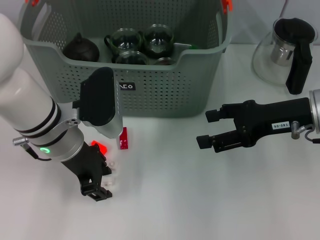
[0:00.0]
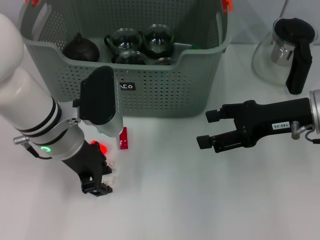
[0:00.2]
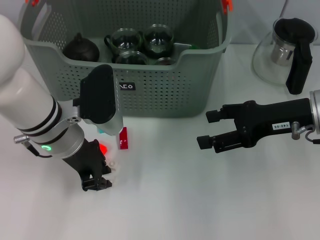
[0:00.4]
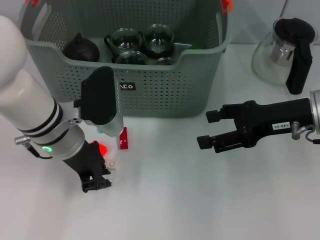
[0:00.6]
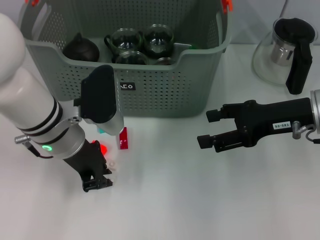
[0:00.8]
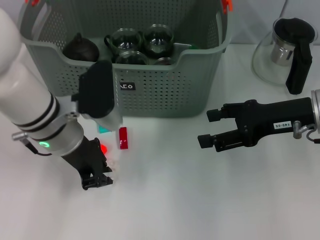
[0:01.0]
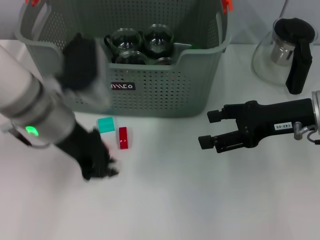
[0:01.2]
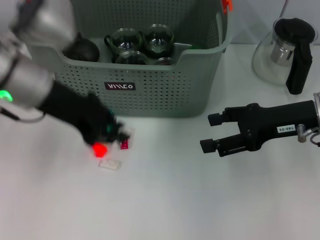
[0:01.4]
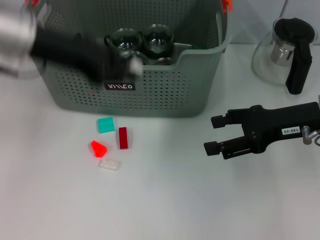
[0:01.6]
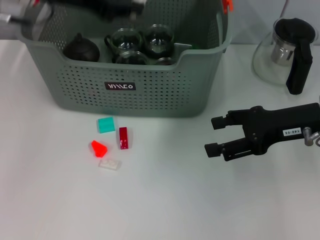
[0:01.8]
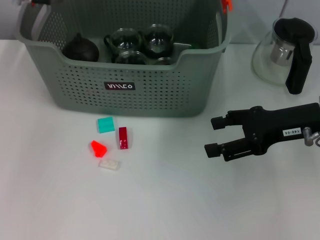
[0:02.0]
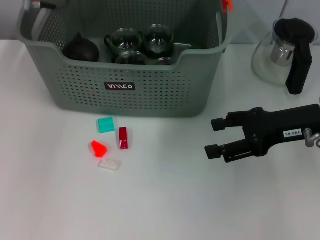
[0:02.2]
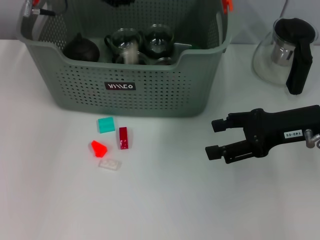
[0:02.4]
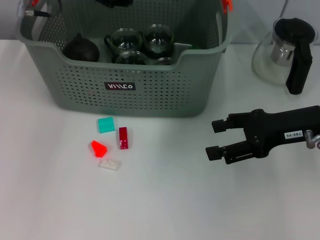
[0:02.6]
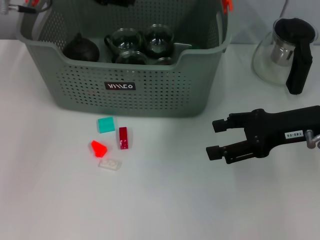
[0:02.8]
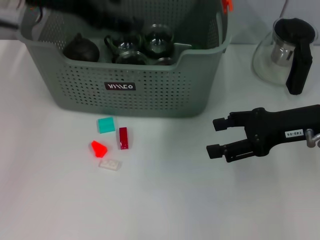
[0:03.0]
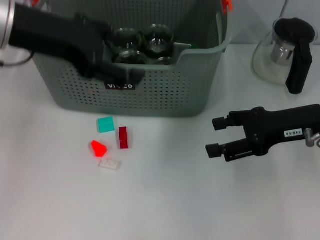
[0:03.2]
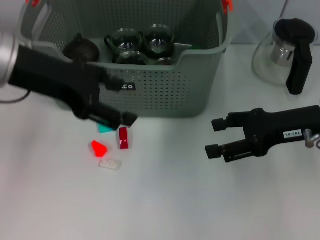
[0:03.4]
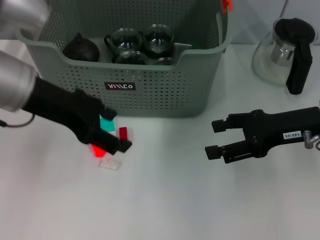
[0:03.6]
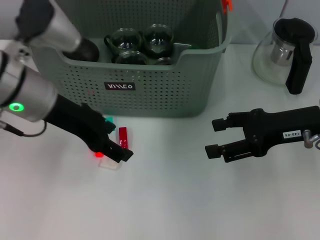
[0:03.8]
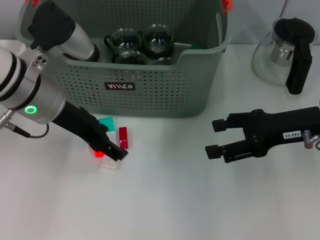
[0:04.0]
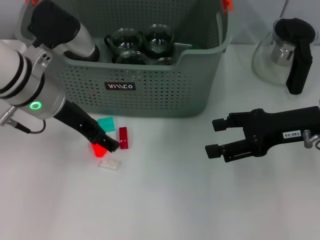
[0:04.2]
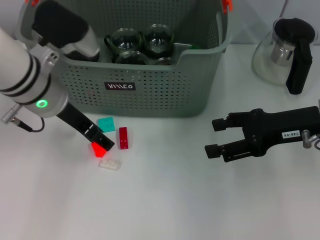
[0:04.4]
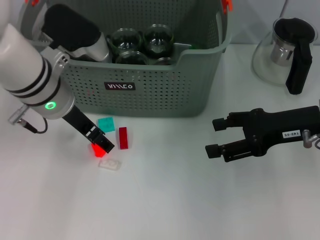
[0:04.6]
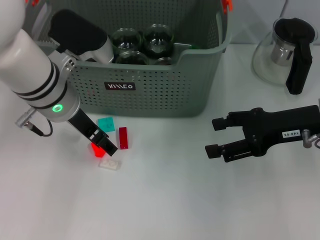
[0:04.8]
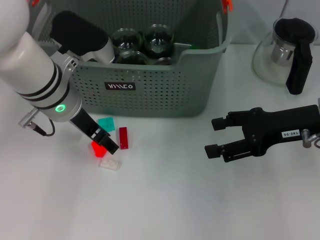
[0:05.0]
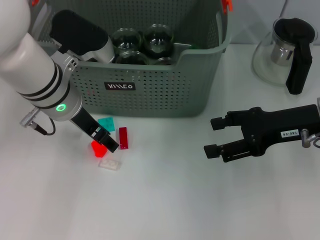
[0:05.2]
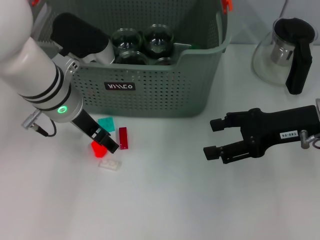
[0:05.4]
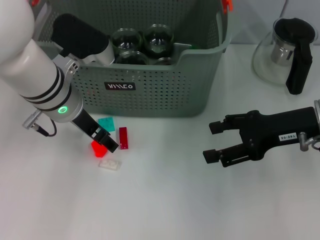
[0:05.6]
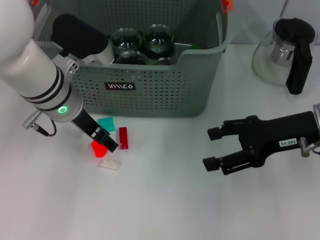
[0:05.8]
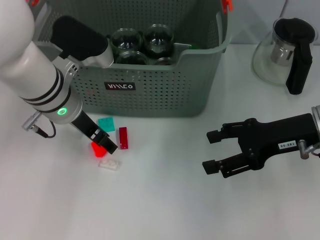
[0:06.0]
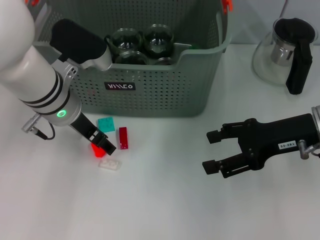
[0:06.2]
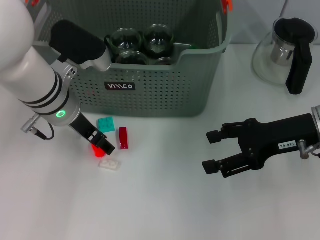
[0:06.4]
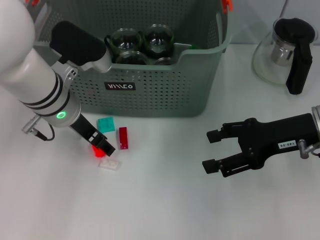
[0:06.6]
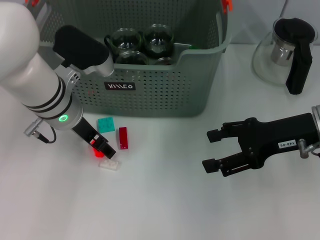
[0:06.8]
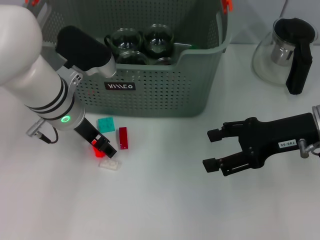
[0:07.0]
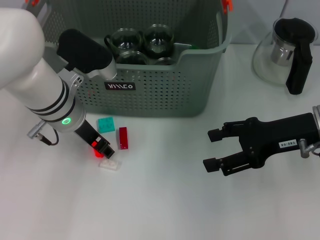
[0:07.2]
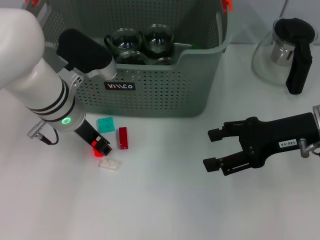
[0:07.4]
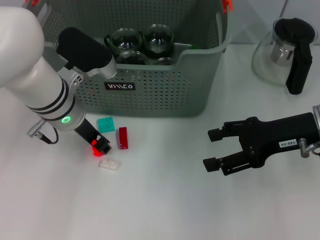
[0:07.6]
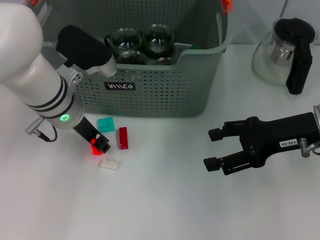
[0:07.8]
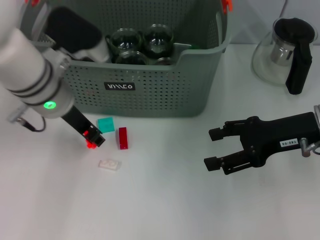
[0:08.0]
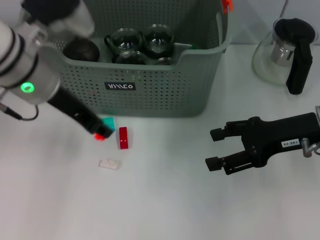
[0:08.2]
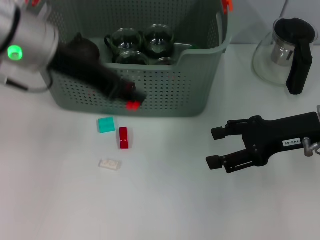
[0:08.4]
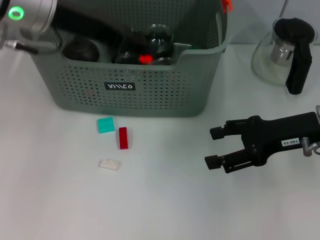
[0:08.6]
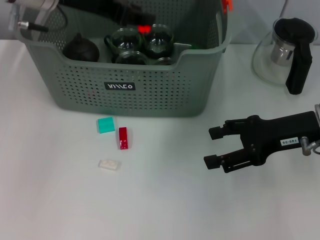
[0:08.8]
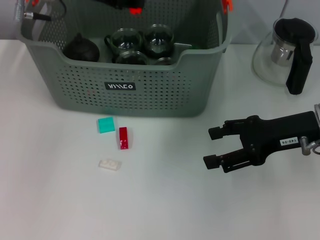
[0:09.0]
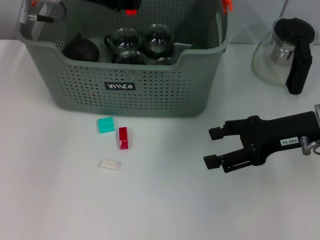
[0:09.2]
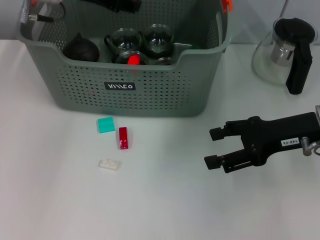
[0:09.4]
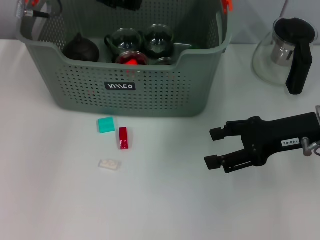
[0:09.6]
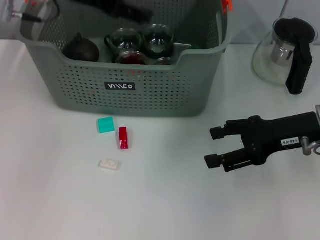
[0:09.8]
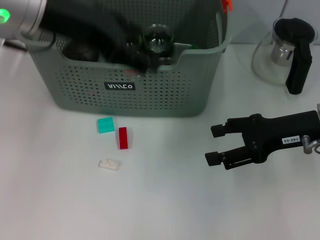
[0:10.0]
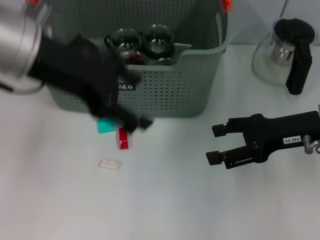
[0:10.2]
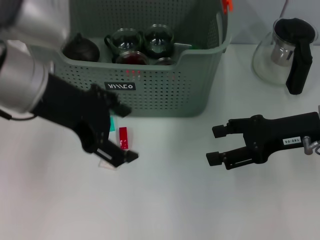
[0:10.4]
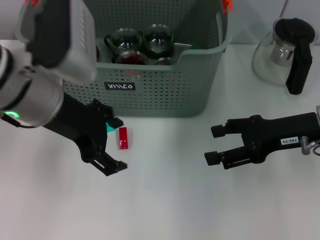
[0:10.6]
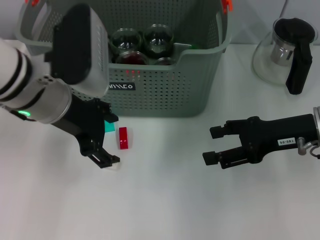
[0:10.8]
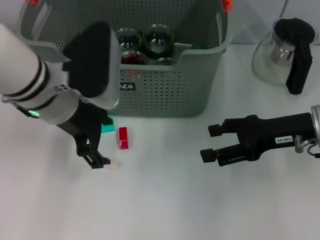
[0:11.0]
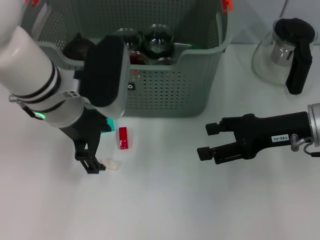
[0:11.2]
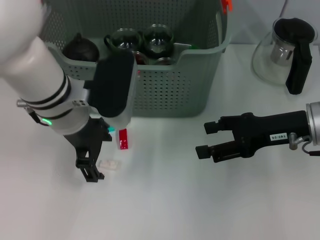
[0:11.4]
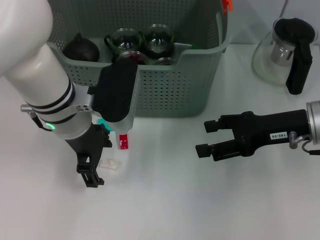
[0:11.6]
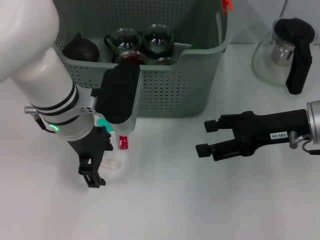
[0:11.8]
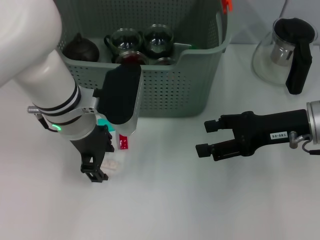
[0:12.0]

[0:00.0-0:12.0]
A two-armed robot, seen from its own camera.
Task of the whole recording: pick up the teacup on the table and place it into the storage bin, pick up the block on the table and place it into the storage bin.
Step, 0:00.8 to 0:02.4: Place the white block in the storage box with left gripper.
Step, 0:02.6 to 0:07.4: Grasp the orange block with left gripper.
Step, 0:07.8 to 0:09.4: Place the orange block in the storage box with left gripper.
0:00.0 to 0:01.6: The left gripper heads upward, covering approximately 15 cm, and closes up.
0:01.6 to 0:03.0: The left gripper goes forward and returns, roughly 10 cm each way, and opens its fingers.
0:03.0 to 0:04.4: The left gripper travels downward by approximately 10 cm.
0:04.4 to 0:06.0: The grippers stay close to where they were, moving slightly.
0:06.0 to 0:07.6: The left gripper closes up.
0:07.6 to 0:09.0: The left gripper moves upward and forward, roughly 15 cm.
0:09.0 to 0:10.4: The left gripper goes approximately 15 cm backward, and opens its fingers.
0:10.4 to 0:12.0: The left gripper shifts roughly 10 cm downward and forward.

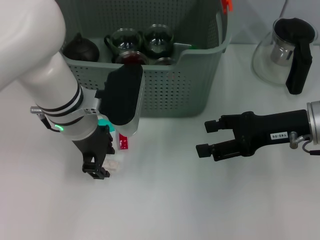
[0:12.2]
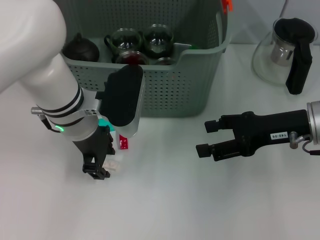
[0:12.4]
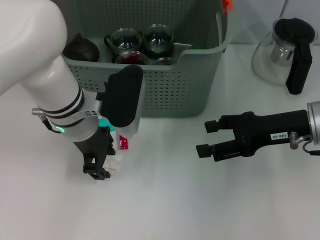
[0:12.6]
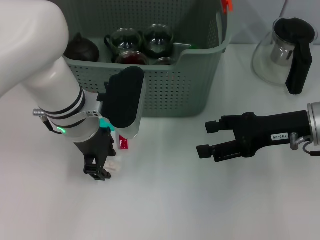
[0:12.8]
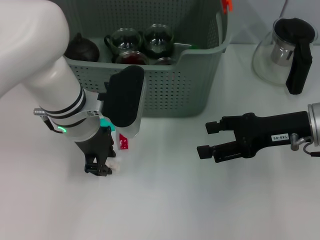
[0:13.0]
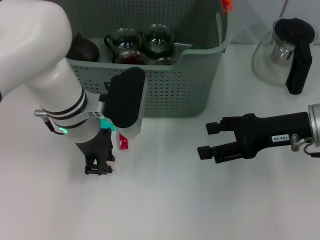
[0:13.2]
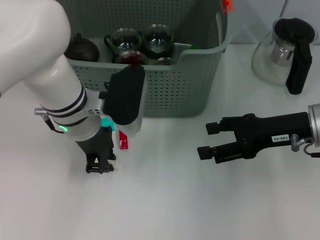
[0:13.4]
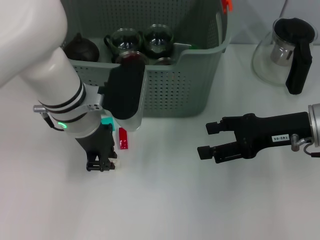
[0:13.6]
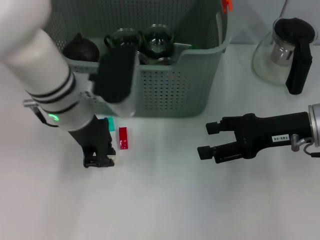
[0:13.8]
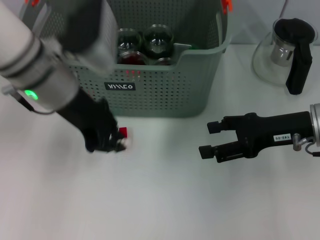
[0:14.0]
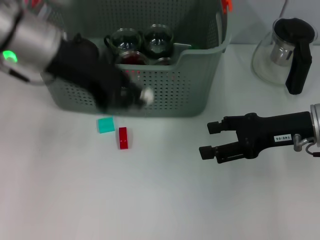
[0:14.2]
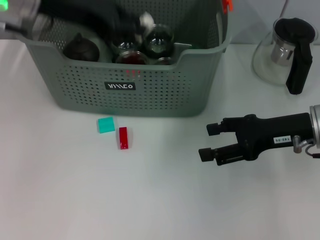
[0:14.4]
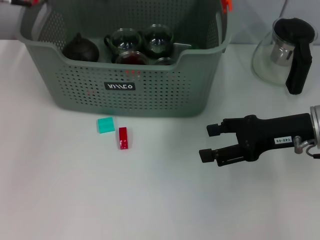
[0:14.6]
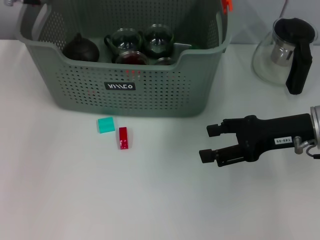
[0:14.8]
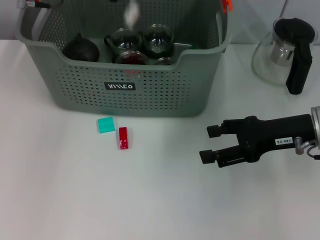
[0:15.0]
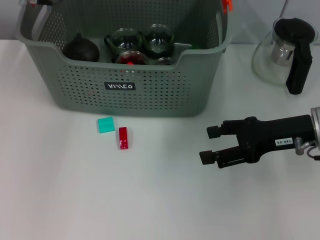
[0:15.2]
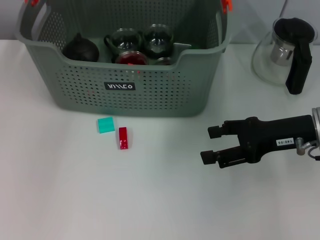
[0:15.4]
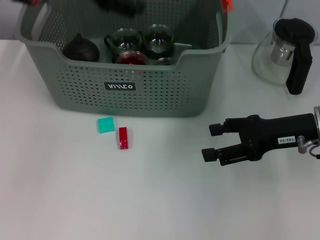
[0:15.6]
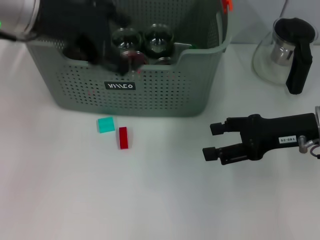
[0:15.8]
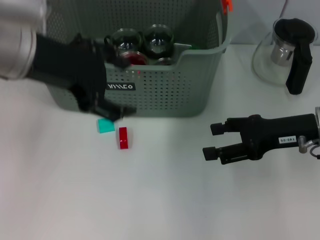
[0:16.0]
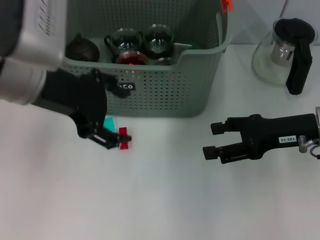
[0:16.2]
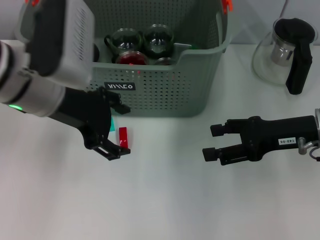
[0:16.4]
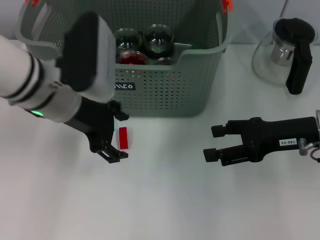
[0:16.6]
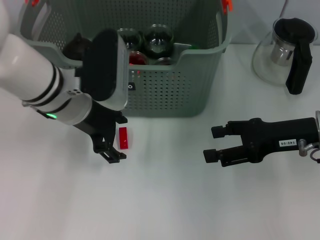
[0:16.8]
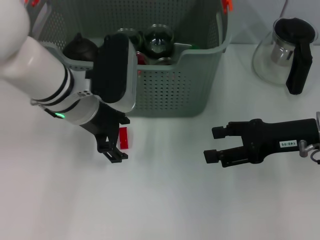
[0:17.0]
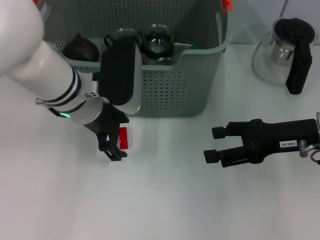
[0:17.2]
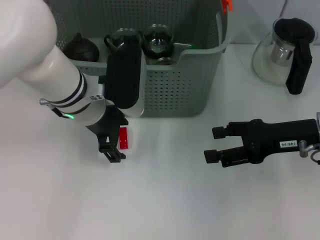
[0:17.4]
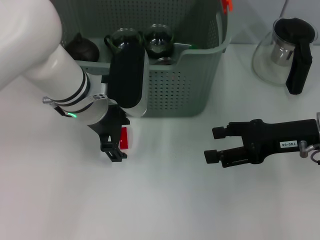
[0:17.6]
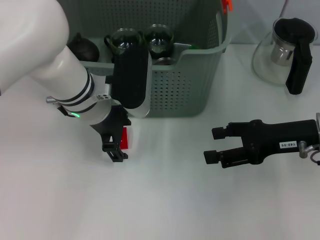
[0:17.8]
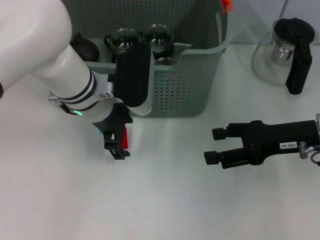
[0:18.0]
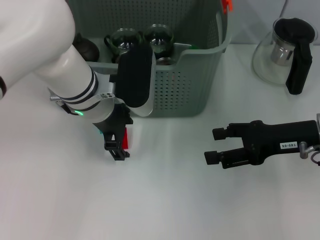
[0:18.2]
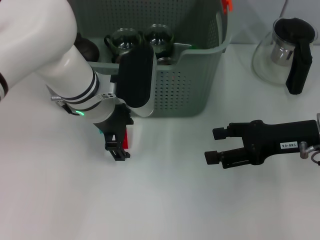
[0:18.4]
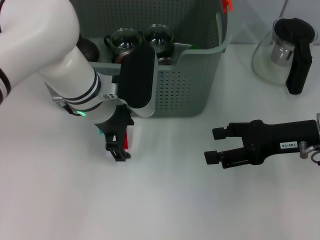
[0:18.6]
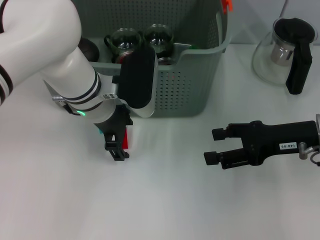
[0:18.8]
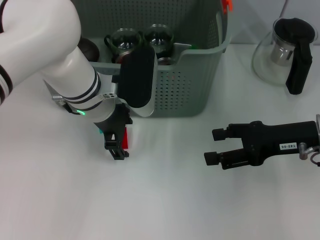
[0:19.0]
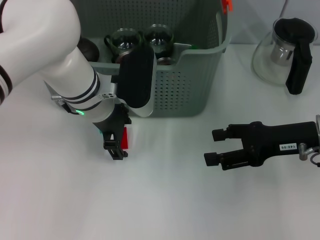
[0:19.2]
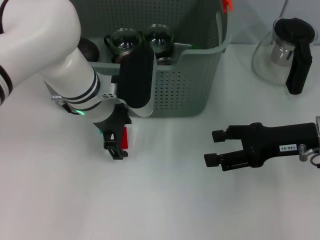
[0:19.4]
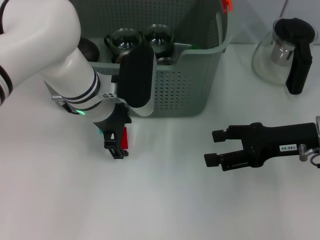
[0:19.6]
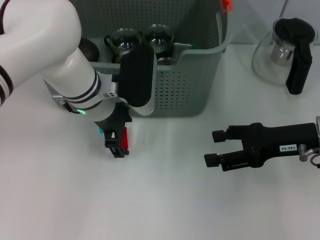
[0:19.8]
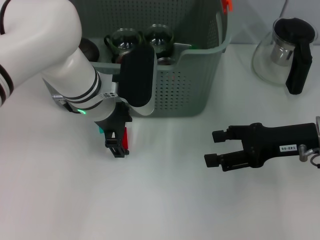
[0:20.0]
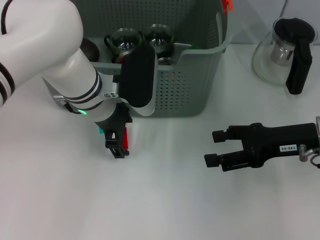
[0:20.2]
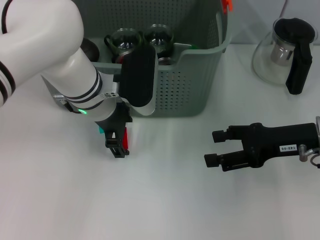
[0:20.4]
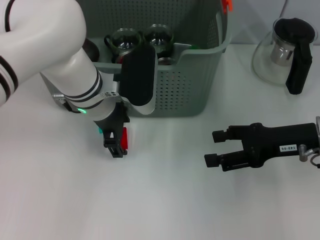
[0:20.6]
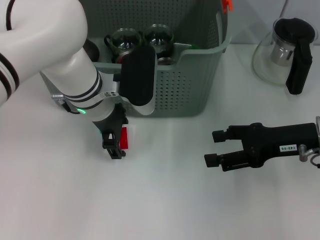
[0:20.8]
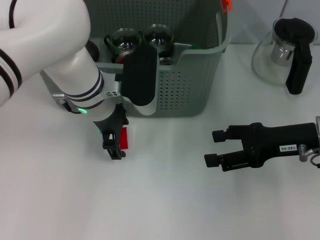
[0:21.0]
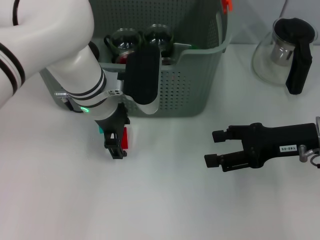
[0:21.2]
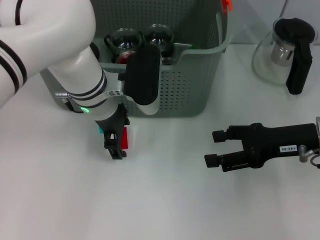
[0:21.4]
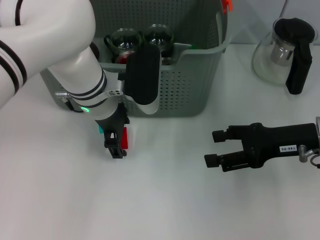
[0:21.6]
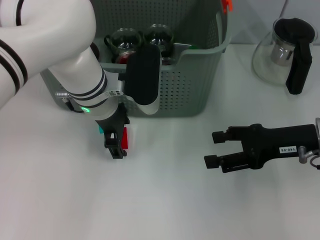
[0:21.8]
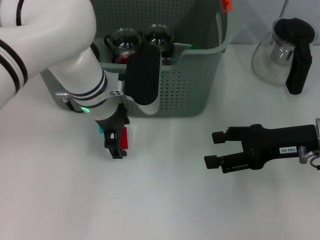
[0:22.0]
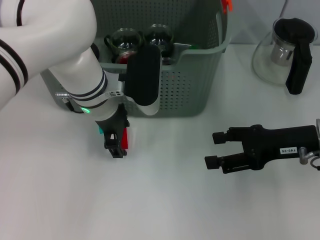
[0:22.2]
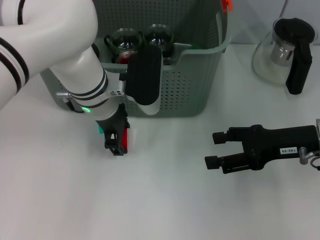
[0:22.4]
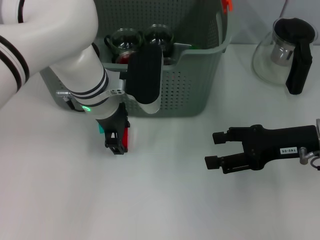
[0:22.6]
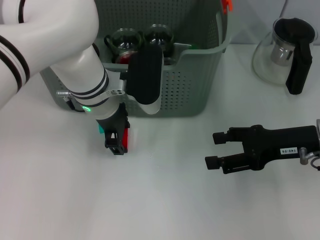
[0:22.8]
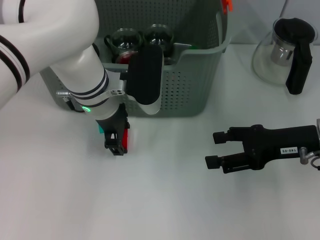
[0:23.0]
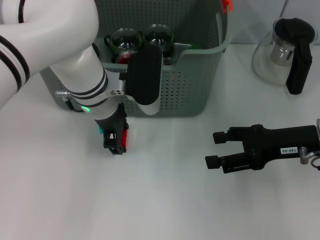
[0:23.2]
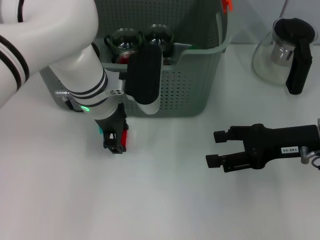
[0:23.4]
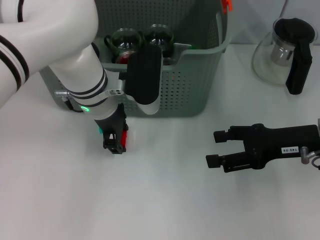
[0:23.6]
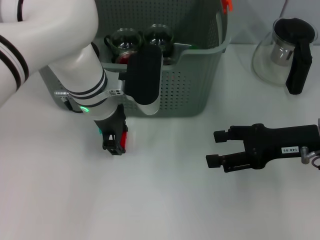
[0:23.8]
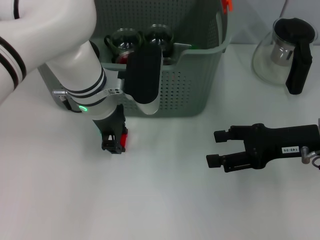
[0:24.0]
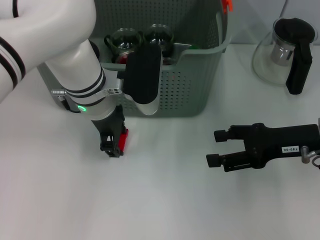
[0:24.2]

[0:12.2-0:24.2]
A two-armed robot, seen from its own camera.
Task of the whole recording: pick up the teacup on the table and place it into the storage bin, pick up the block on the table and place it into the storage bin.
Step, 0:13.4 to 0:15.0: Place the white block in the storage box with left gripper.
0:12.2 to 0:13.8: The left gripper closes up.
0:13.8 to 0:15.2: The left gripper goes some 15 cm upward and forward.
0:15.2 to 0:16.6: The left gripper is displaced backward and downward by approximately 15 cm, and opens.
0:16.6 to 0:18.2: The left gripper goes some 5 cm downward.
0:18.2 to 0:21.2: Both grippers stay about where they are.
0:21.2 to 0:24.2: Both grippers stay put.
